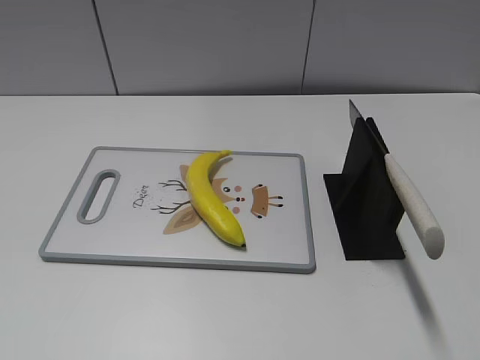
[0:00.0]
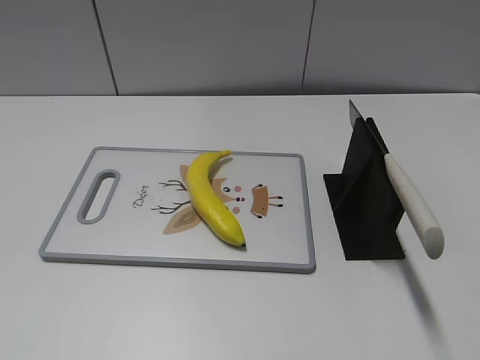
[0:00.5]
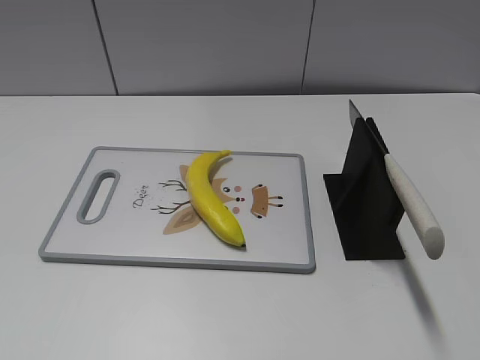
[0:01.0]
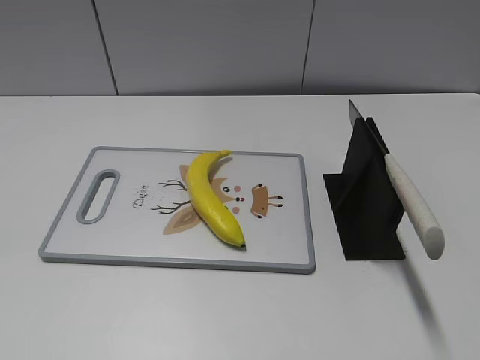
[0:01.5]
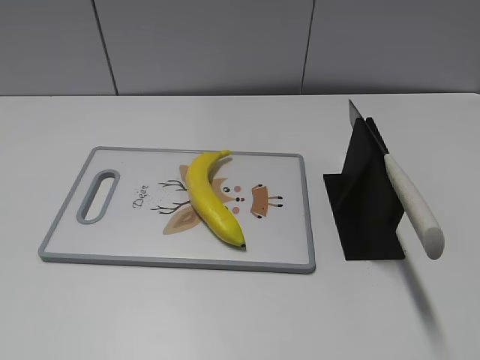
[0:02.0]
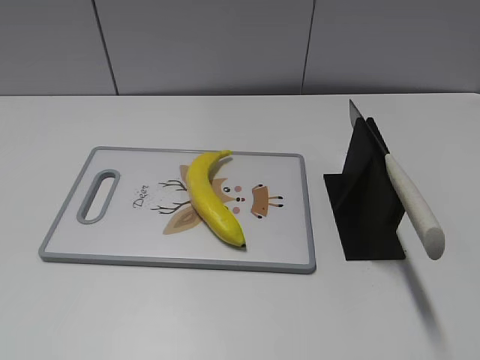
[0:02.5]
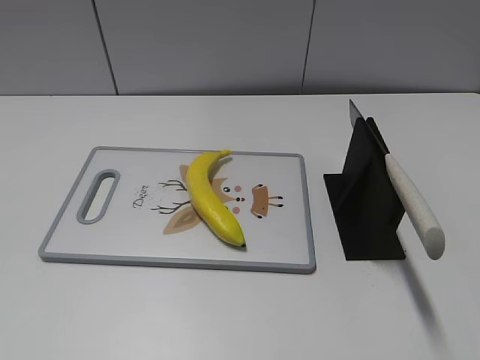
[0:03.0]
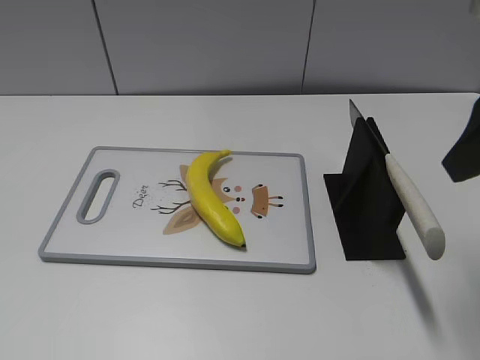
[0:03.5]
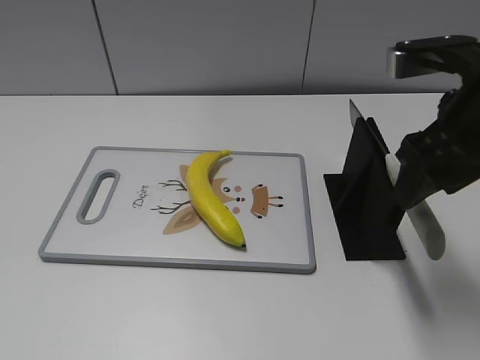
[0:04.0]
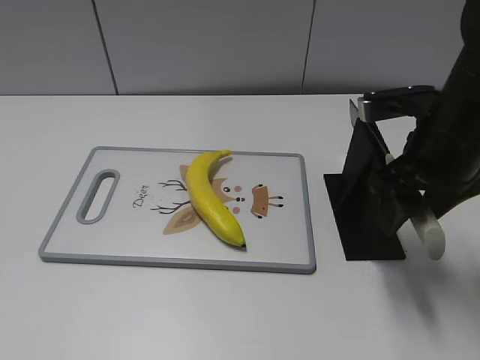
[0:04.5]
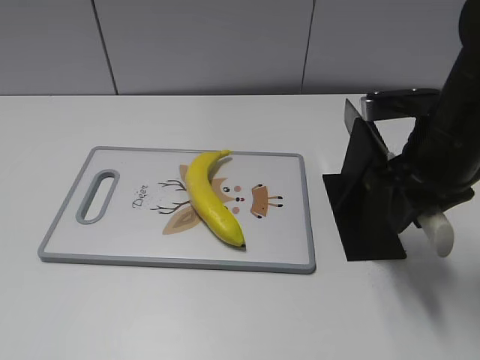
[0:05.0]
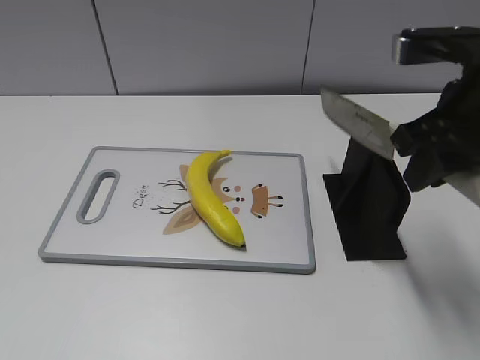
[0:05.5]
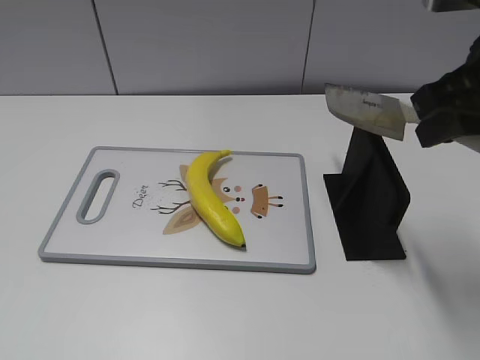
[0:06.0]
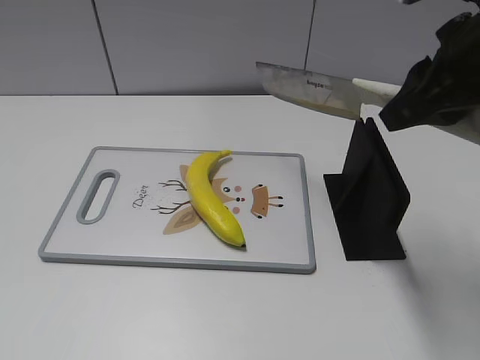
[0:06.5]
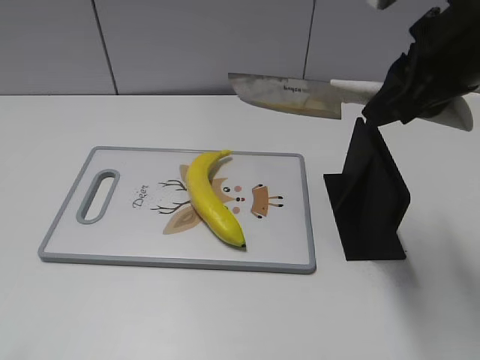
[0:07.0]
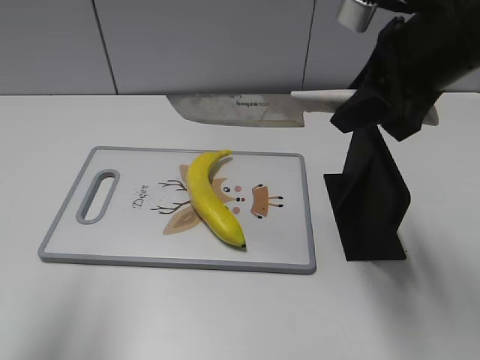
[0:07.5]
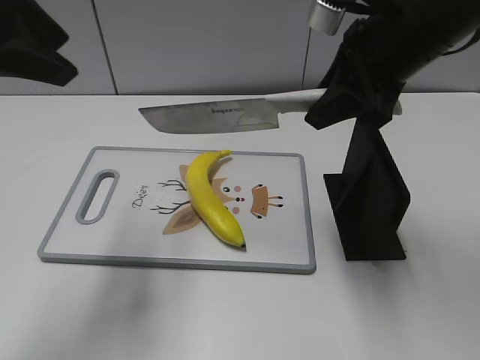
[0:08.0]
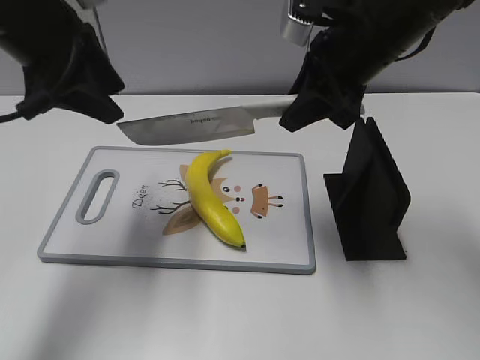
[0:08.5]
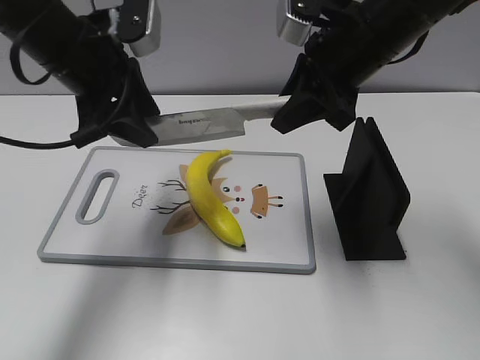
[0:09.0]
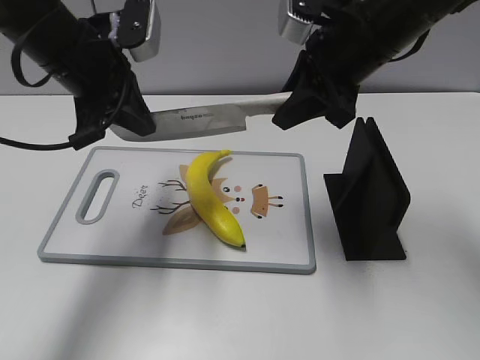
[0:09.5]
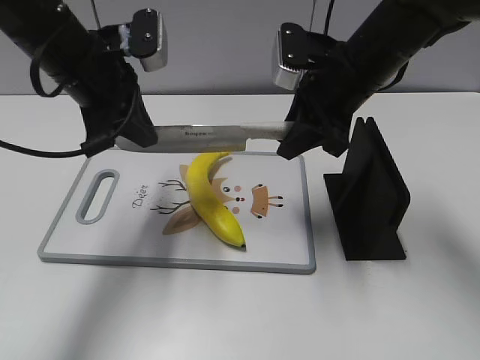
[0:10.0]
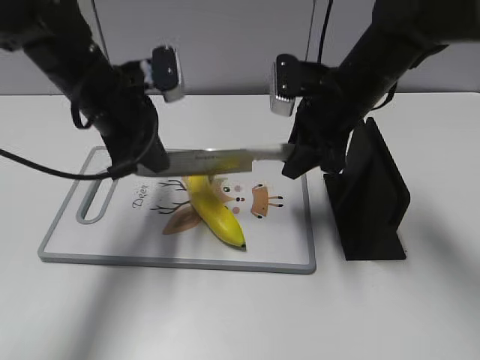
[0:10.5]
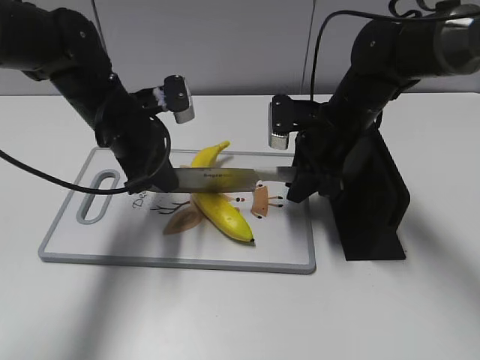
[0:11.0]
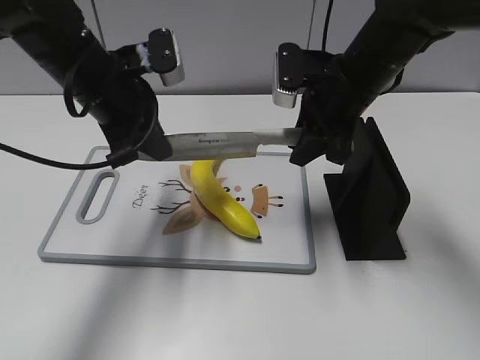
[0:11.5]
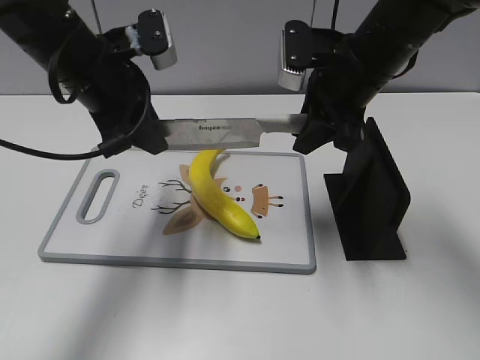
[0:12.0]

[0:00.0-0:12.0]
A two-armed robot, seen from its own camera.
Task of the whole recording: cut plastic banana.
Step, 0:00.0 to 0:06.0: Grab the knife handle with your right hand.
Step, 0:06.5 to 0:11.5: Lift the knife with your right hand.
0:02.0 to 0:04.0: The right gripper heads forward, covering roughly 25 cm.
0:04.0 to 0:06.0: The right gripper closes up.
0:06.0 to 0:08.0: The right gripper shifts approximately 10 cm forward and to the left. The left gripper moves forward, some 25 cm.
0:08.0 to 0:10.0: The right gripper shifts approximately 10 cm downward and forward; the left gripper shifts some 15 cm downward, forward and to the right, and closes.
0:10.0 to 0:12.0: The left gripper travels downward and back again, about 10 cm each way, and opens its fingers. The right gripper travels downward and back again, approximately 10 cm each way.

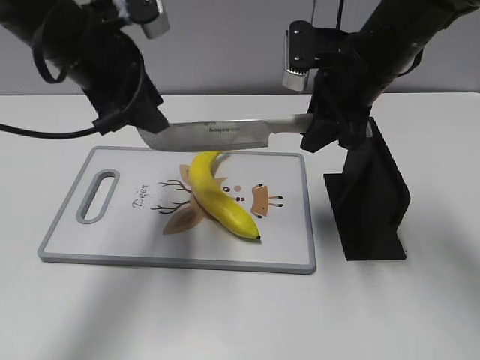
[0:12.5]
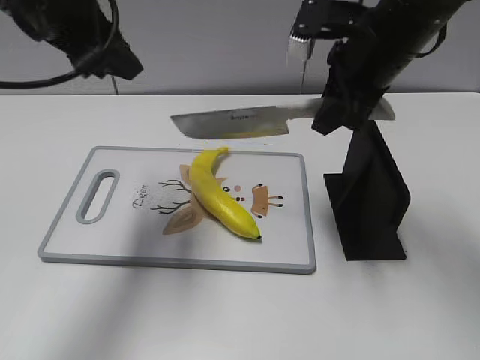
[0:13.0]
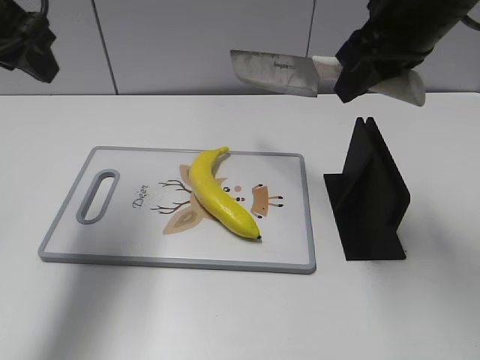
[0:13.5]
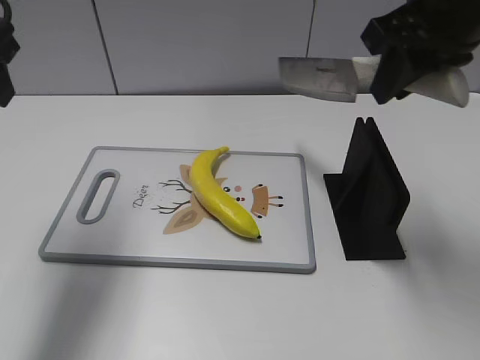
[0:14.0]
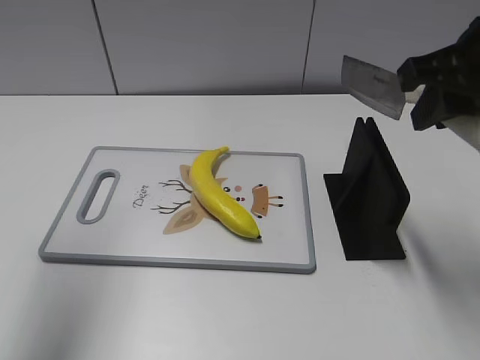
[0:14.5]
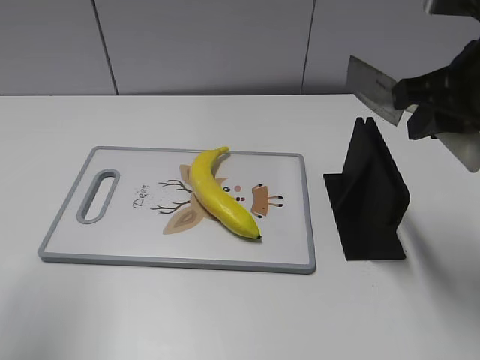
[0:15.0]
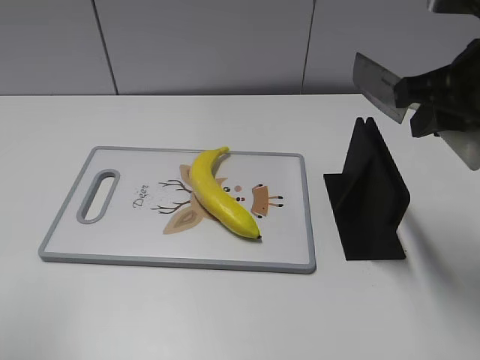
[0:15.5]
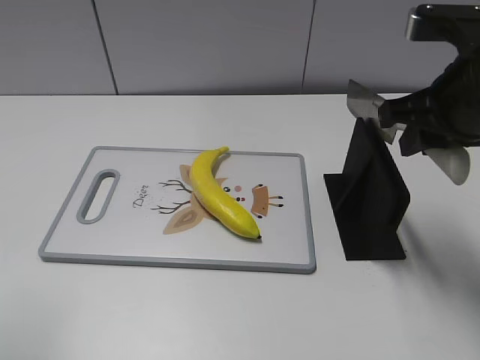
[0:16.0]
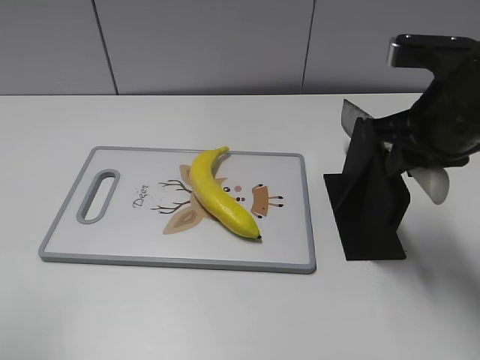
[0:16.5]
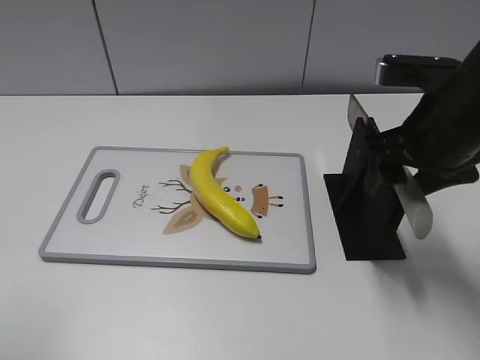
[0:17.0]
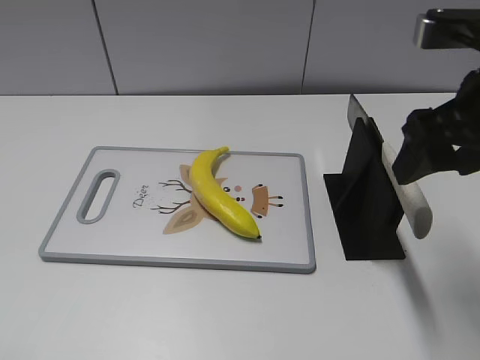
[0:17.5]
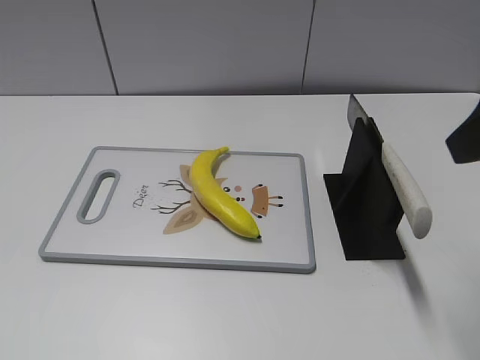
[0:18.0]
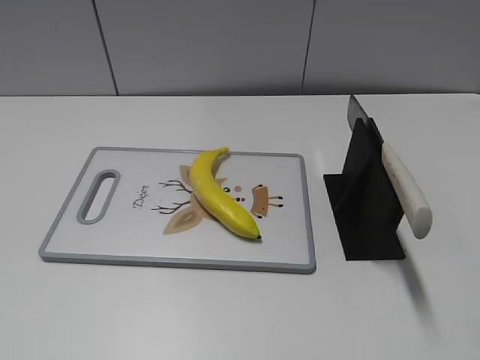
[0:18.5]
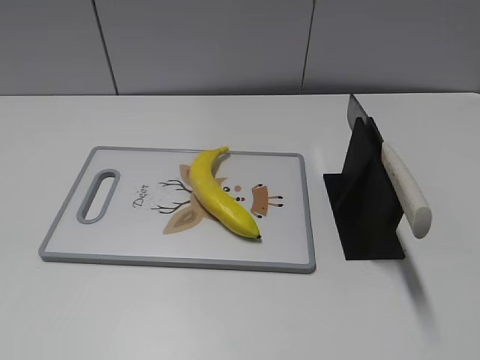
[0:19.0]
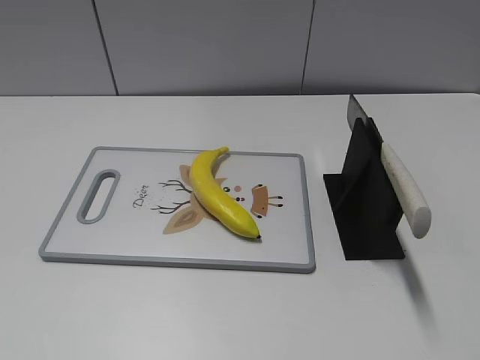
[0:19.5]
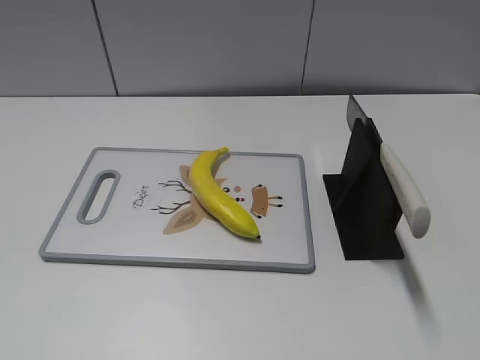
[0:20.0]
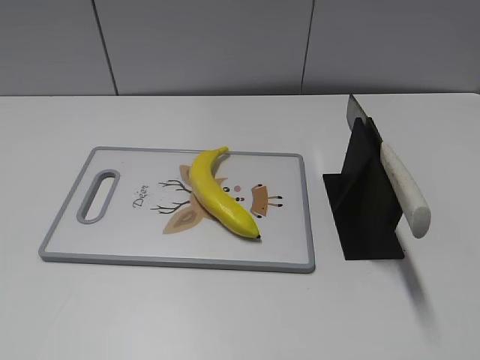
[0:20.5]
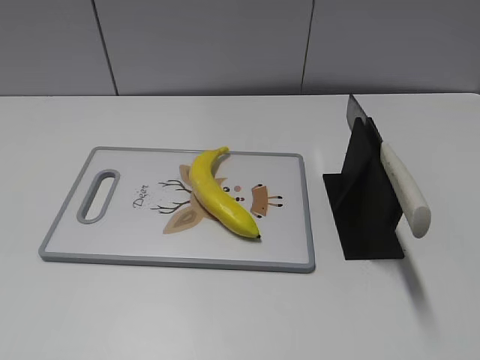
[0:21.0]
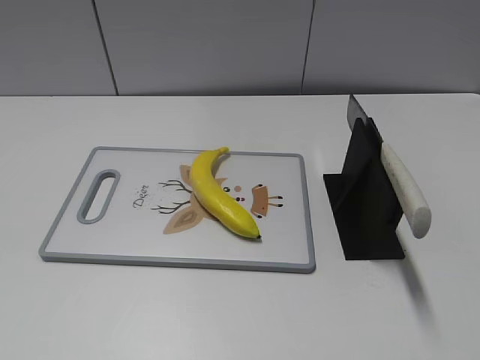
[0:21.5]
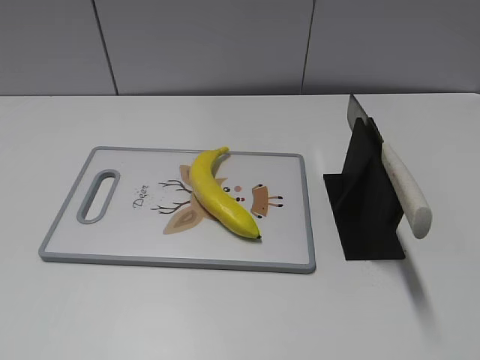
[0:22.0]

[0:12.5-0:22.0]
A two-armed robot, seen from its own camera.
Task of the whole recording: cut plastic banana.
Step, 0:12.5 to 0:13.5: Cut the banana with your right hand.
Step, 0:14.0 to 0:15.0: Lift the knife with your right hand.
Step, 0:15.5 to 0:21.0: Place the knife on the storage rack with your right hand.
0:12.5 to 0:14.5: The right gripper moves backward, upward and to the right, about 15 cm. The left gripper shifts some 20 cm upward, to the left and backward.
0:14.5 to 0:16.5: The right gripper moves downward, about 5 cm. The left gripper is displaced backward by roughly 10 cm.
0:16.5 to 0:18.0: The right gripper travels upward and backward by roughly 15 cm, and opens.
0:18.0 to 0:20.0: The right gripper heads backward, covering about 20 cm.
